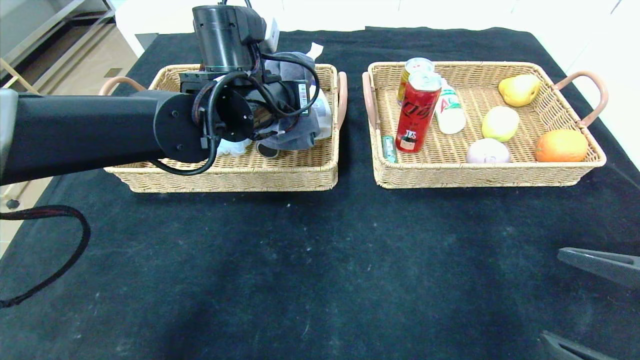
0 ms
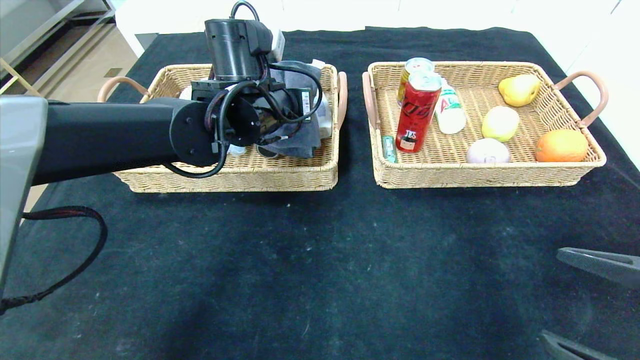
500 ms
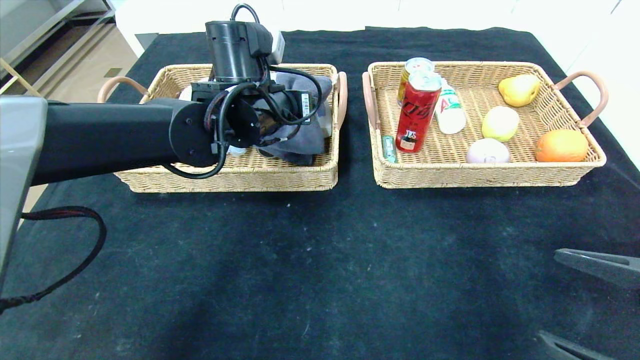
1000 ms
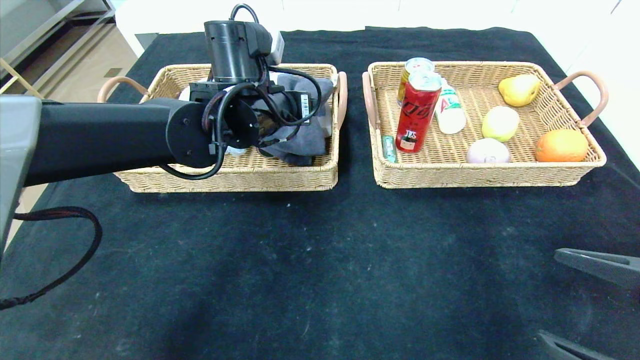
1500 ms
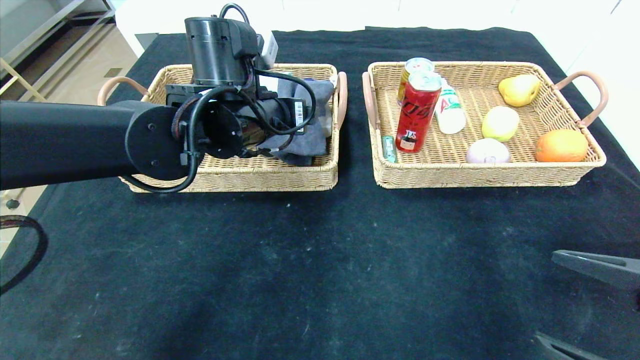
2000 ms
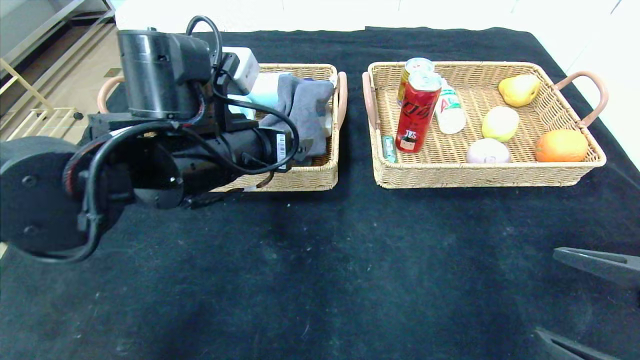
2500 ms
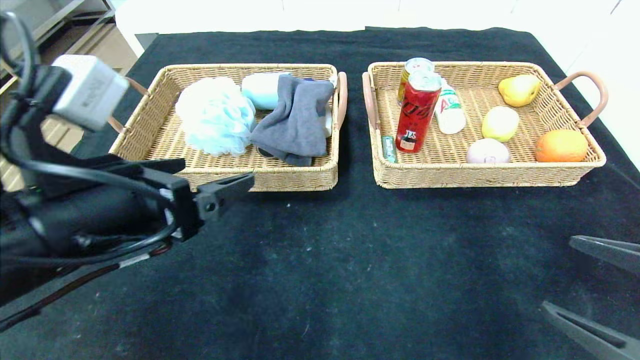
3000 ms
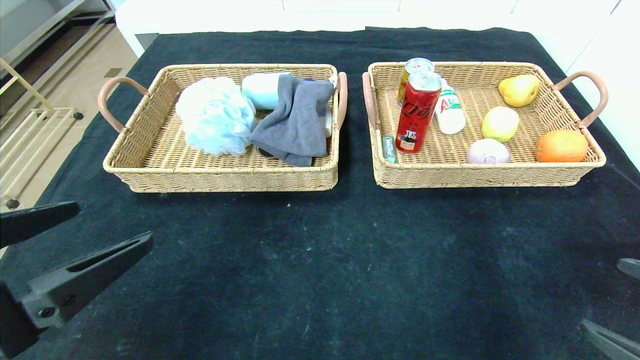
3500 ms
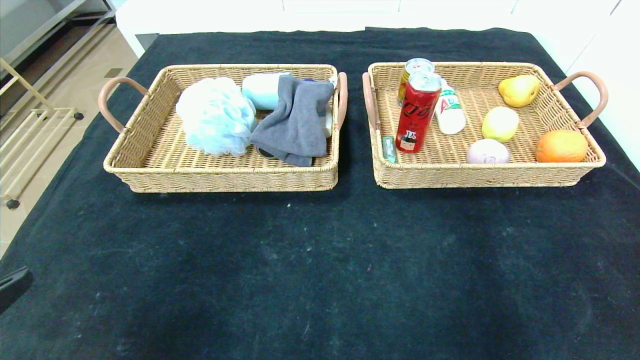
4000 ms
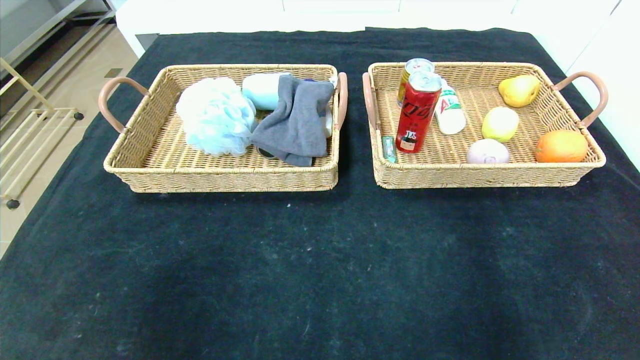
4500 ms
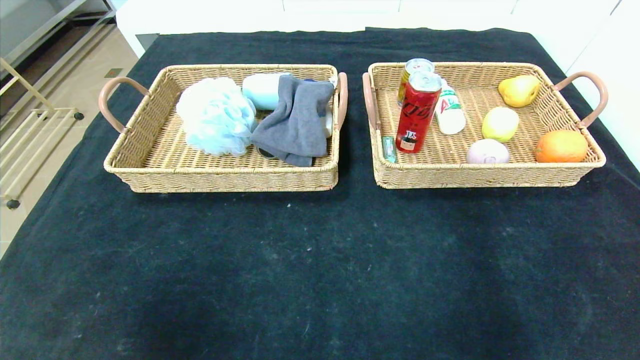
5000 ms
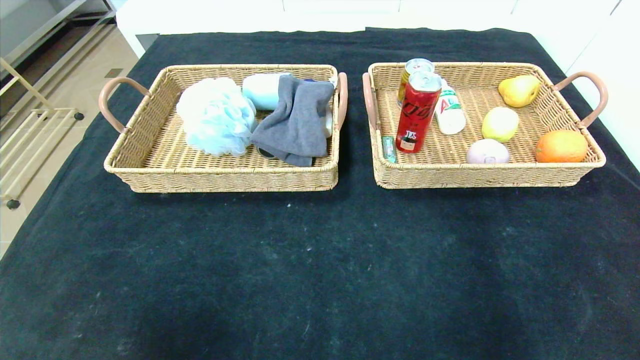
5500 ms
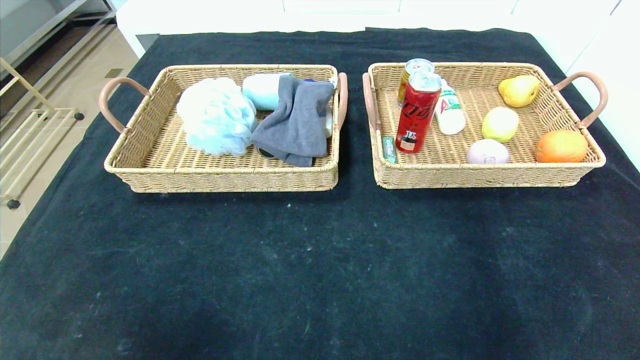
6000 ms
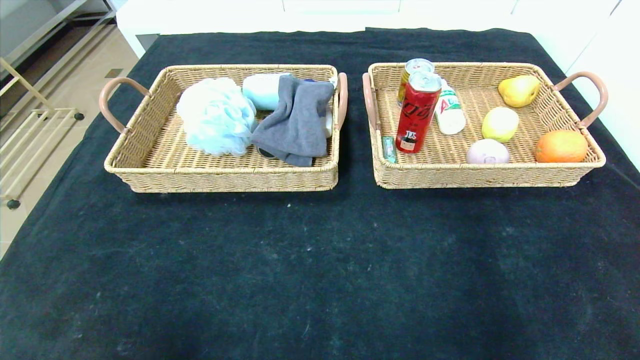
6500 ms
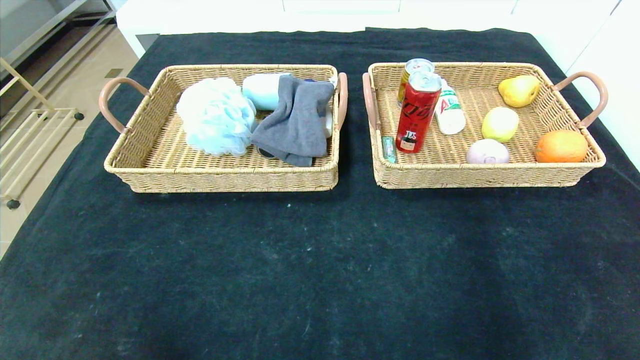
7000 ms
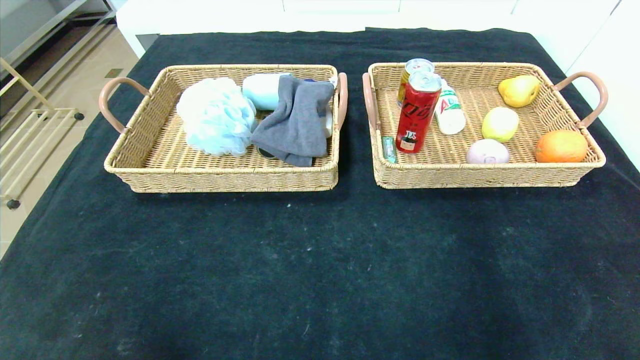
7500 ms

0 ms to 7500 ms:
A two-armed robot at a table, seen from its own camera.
0 ms to 2000 ms: The left gripper opens its fingers.
2000 ms to 4000 ms: The left gripper travels backward and to the left by about 35 cm, while the right gripper is displaced backward and to the right by some 15 cm.
